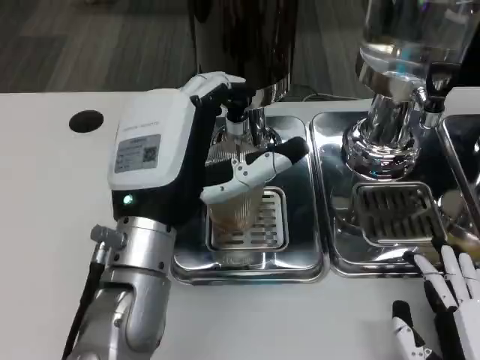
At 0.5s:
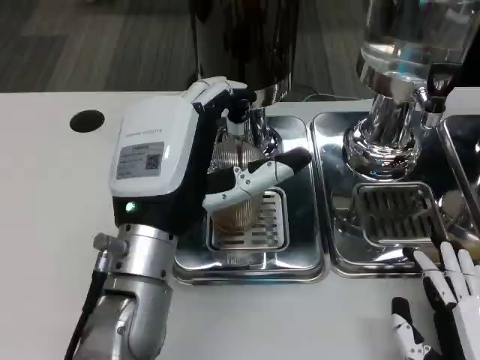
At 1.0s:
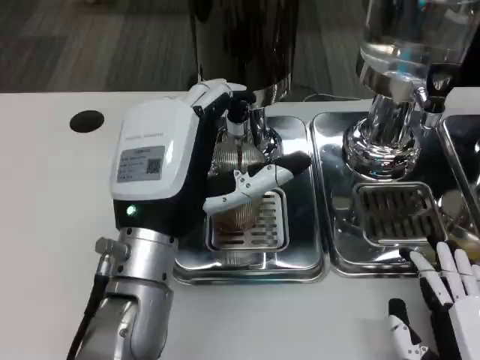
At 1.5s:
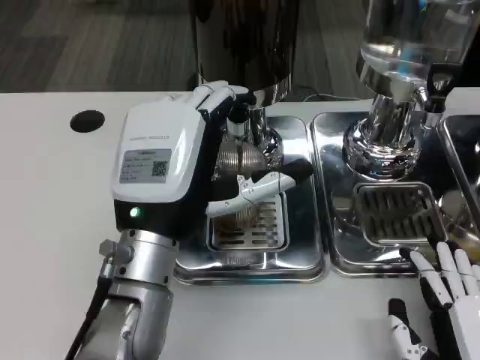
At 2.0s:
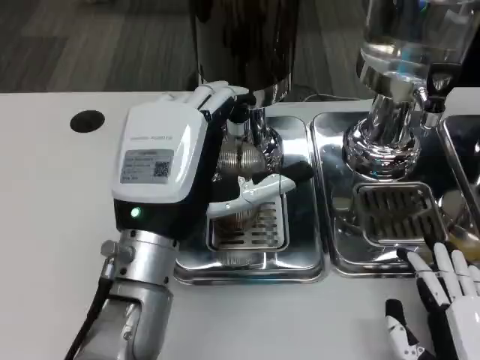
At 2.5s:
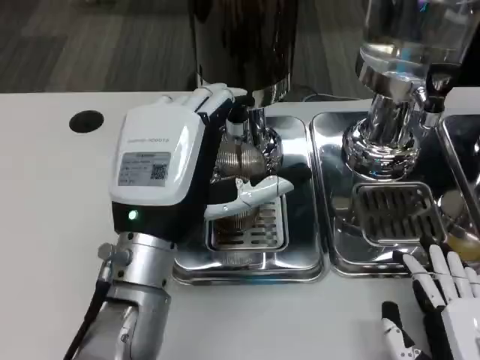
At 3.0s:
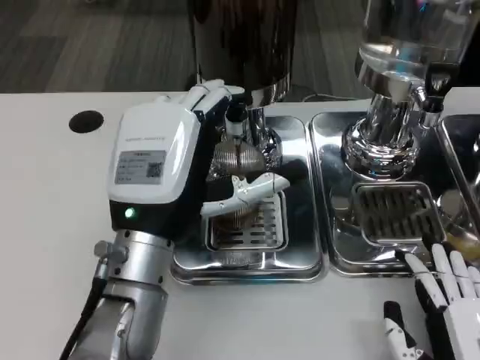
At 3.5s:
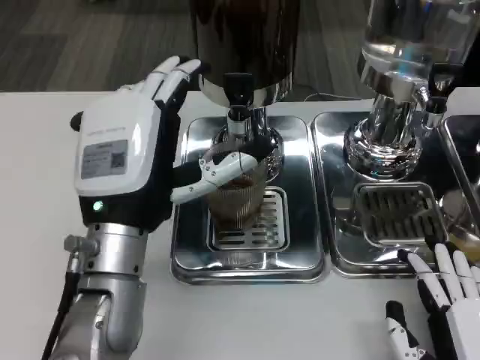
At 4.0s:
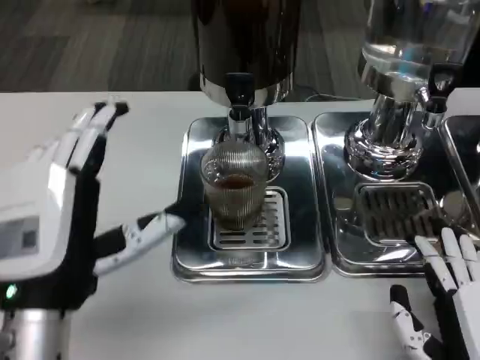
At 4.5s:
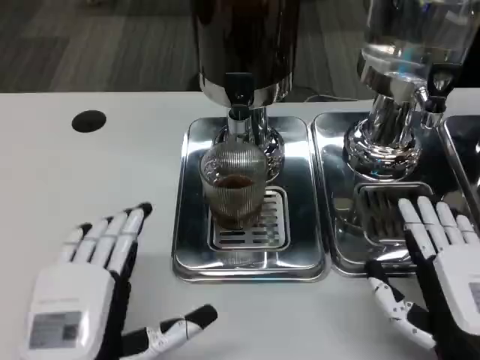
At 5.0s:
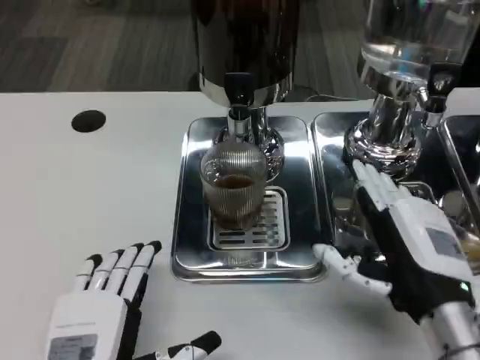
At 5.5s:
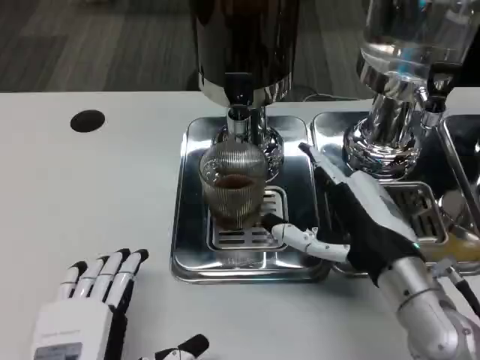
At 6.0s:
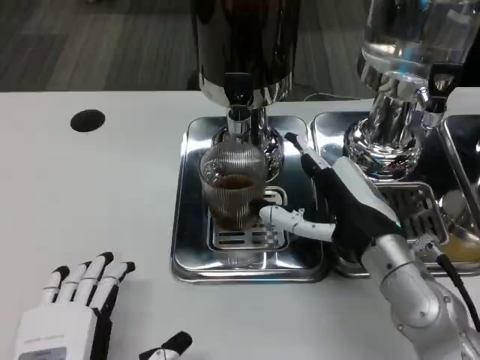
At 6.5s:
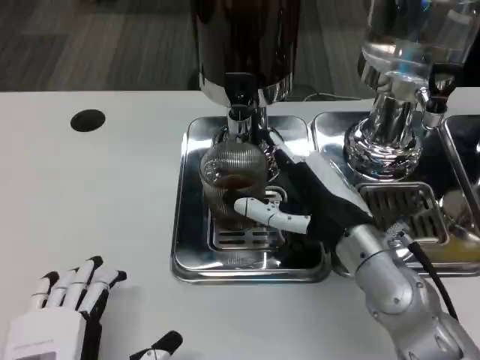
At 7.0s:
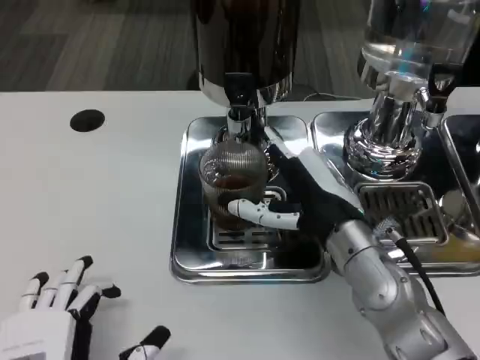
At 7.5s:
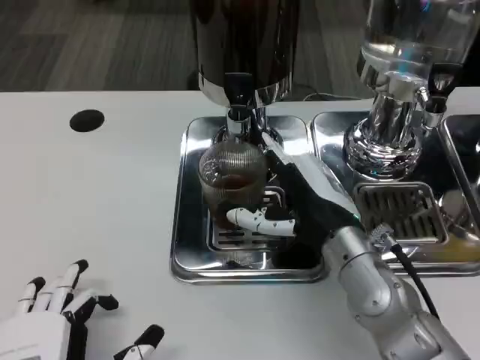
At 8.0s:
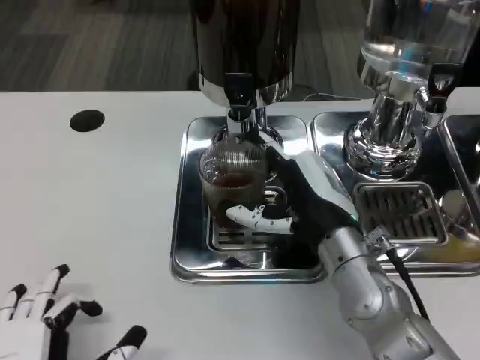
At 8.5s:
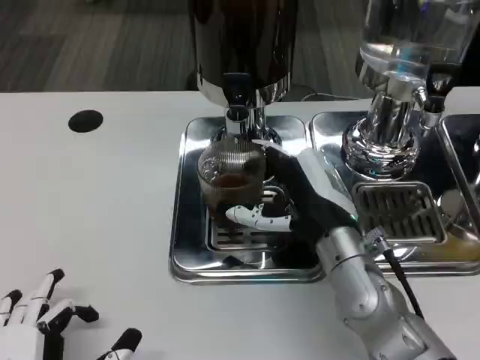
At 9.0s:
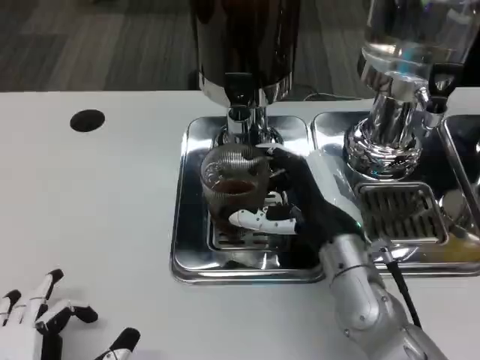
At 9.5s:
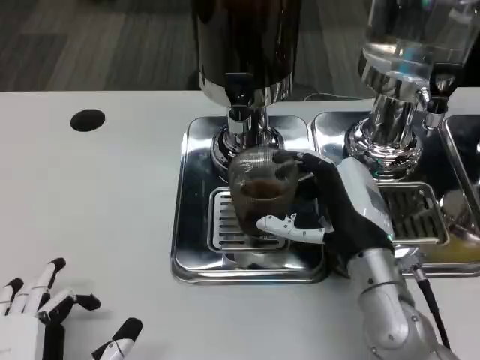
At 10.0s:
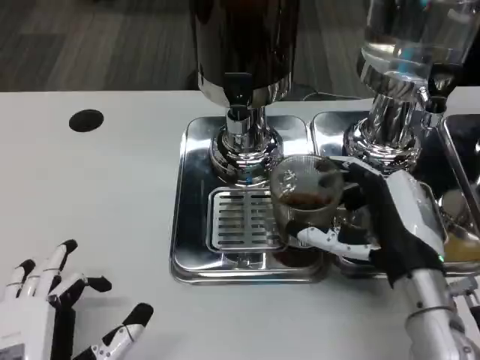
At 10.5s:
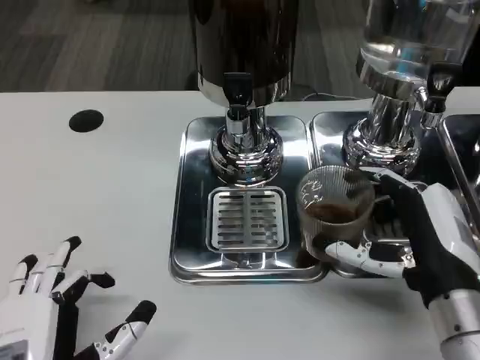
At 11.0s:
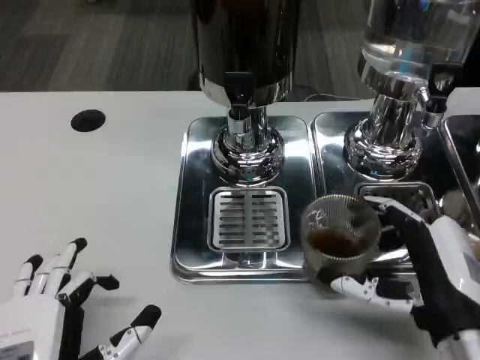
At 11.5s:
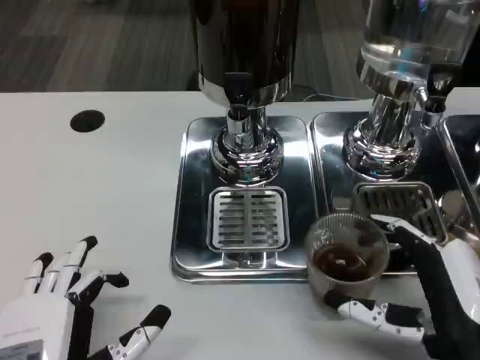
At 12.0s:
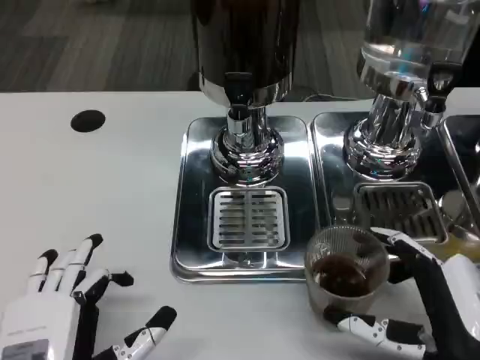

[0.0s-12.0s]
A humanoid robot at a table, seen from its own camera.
Task of the whole recording: Grasp the cup under the faucet to collect the drink, then remove the cup.
0.0s to 2.0s: There are only small adjustments of the hands.
2.0s to 4.0s: The left hand shifts some 10 cm to the left and backward.
4.0s to 6.0s: The right hand travels forward, upward and to the left by roughly 15 cm. Meanwhile the left hand goes roughly 10 cm downward and backward.
6.0s to 8.0s: The hands stay close to where they were, moving slightly.
8.0s to 10.0s: The right hand travels to the right by roughly 5 cm.
10.0s to 12.0s: The right hand moves backward, approximately 10 cm.

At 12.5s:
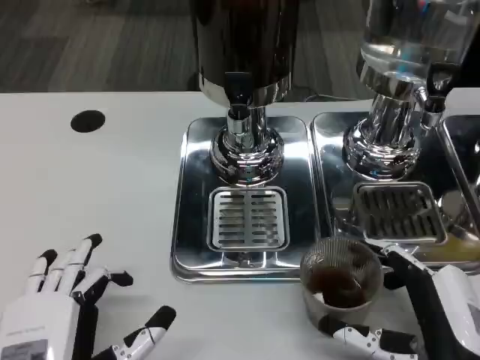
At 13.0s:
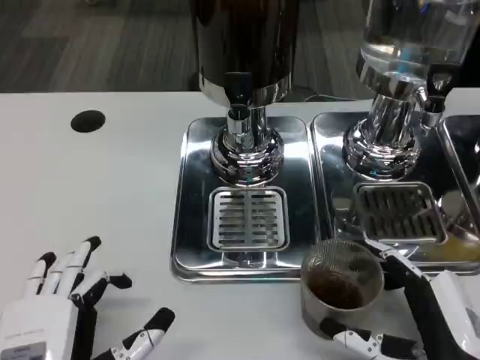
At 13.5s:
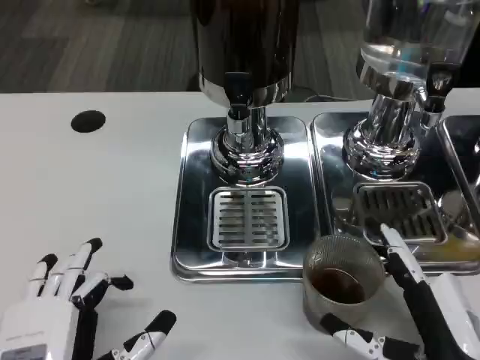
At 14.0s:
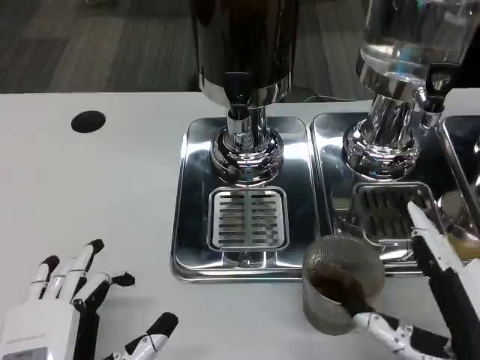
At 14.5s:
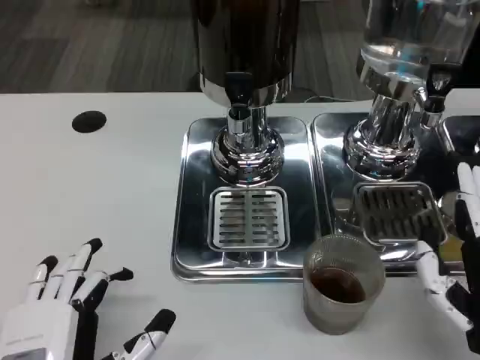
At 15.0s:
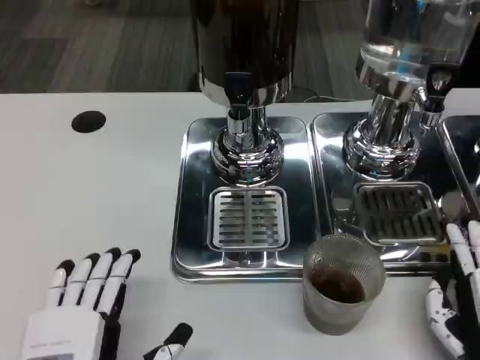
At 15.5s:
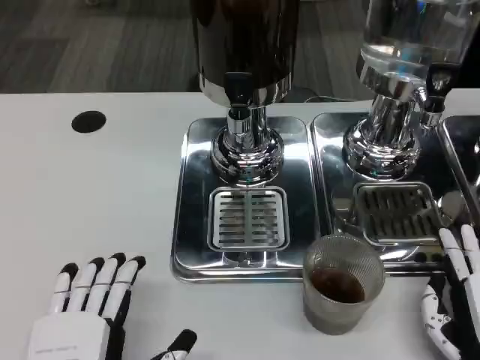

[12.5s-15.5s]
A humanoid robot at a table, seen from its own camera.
Task of the whole recording: Grasp the cup under the faucet to collect the drink, then remove the cup.
12.5s to 14.0s: The hands move only a little.
14.0s to 15.5s: The right hand is displaced downward by approximately 5 cm.

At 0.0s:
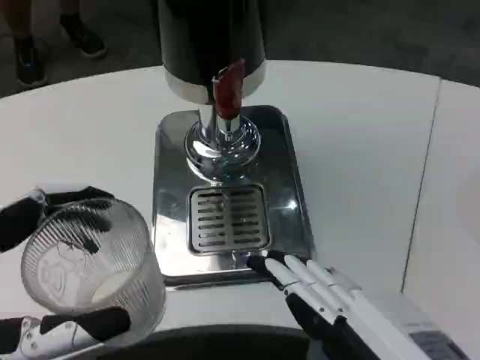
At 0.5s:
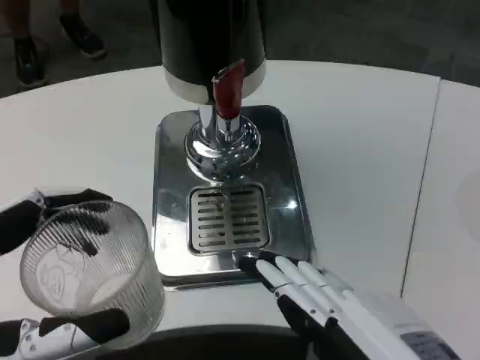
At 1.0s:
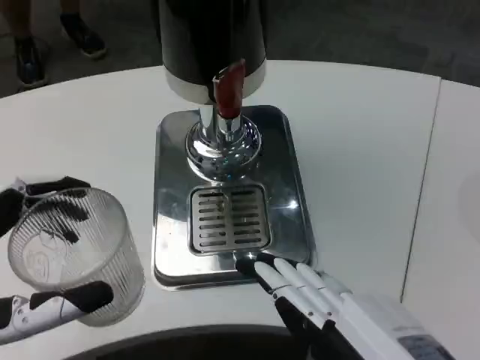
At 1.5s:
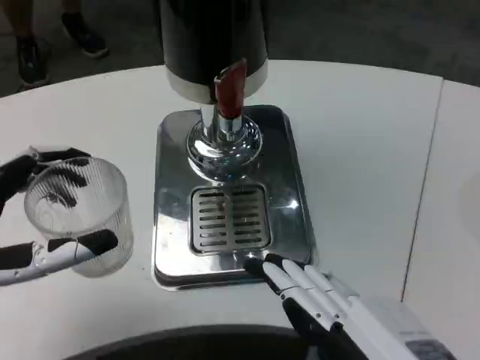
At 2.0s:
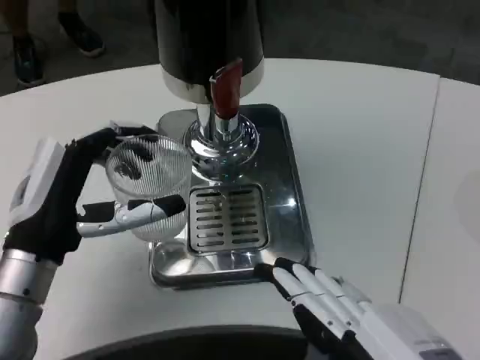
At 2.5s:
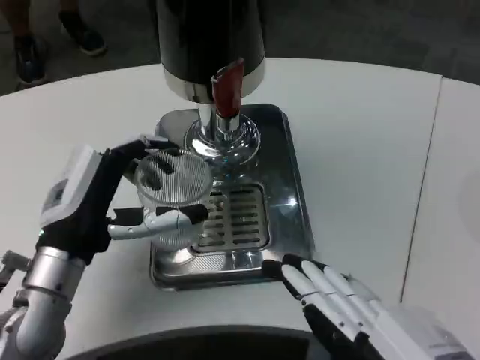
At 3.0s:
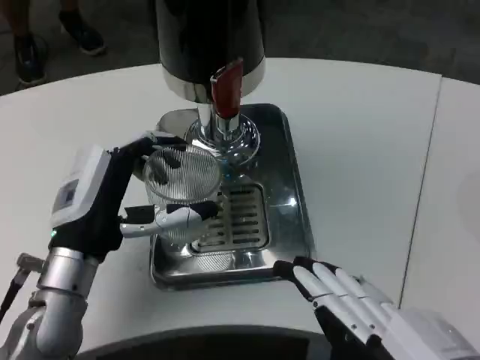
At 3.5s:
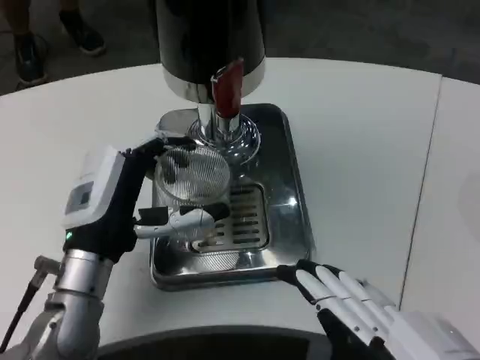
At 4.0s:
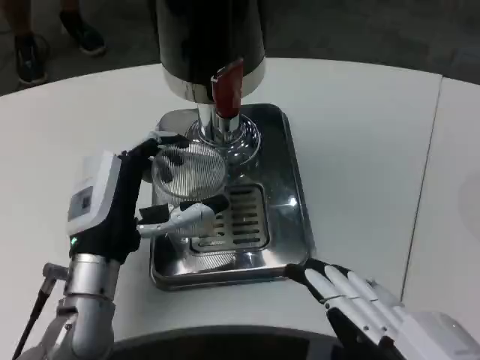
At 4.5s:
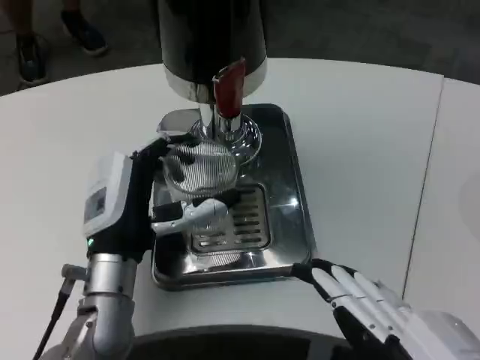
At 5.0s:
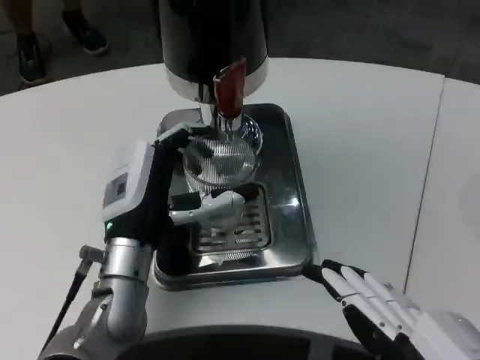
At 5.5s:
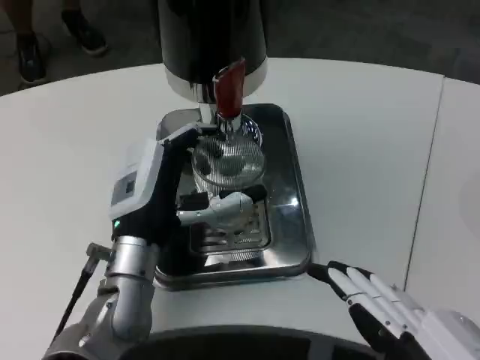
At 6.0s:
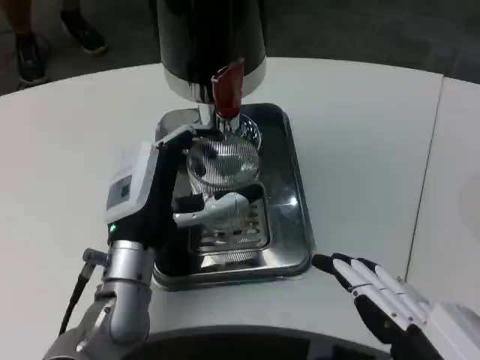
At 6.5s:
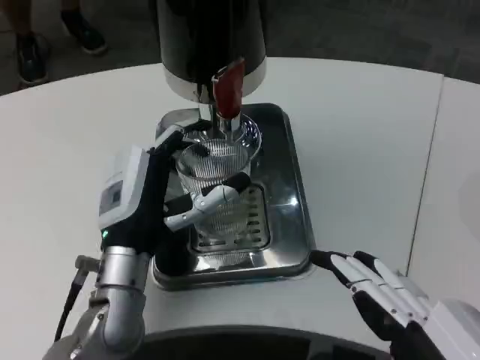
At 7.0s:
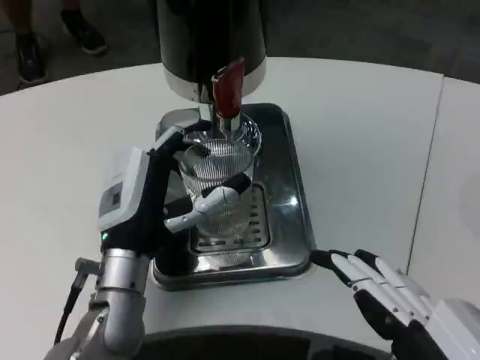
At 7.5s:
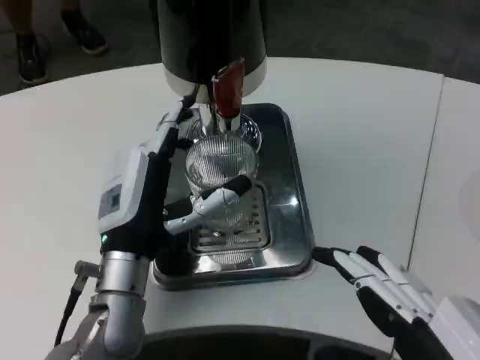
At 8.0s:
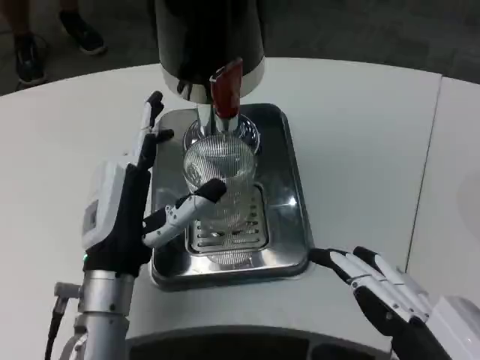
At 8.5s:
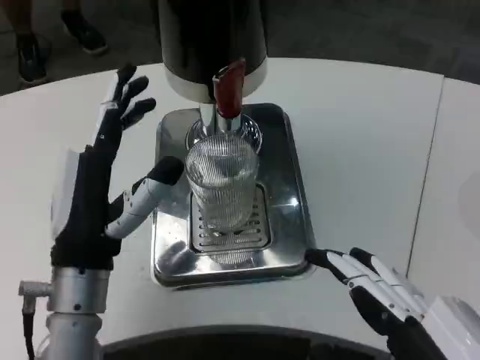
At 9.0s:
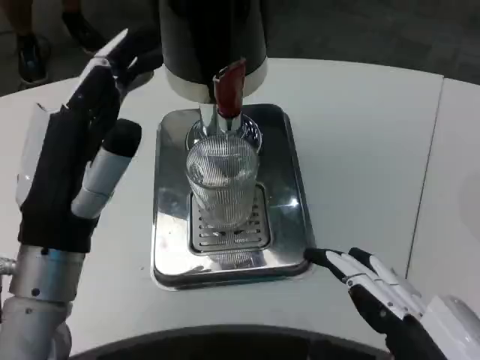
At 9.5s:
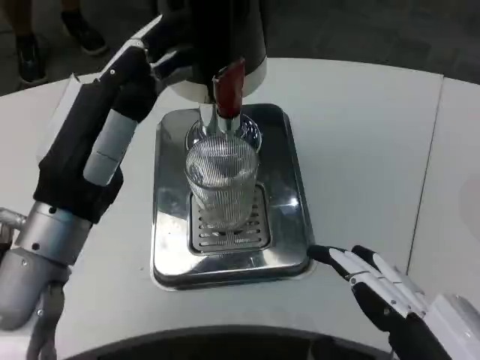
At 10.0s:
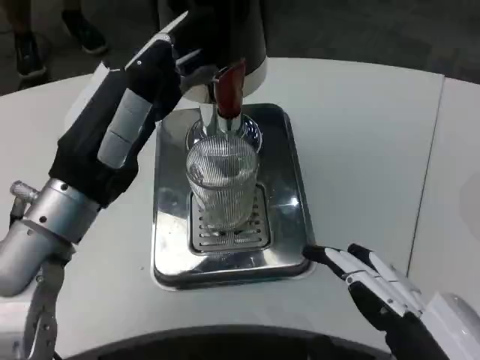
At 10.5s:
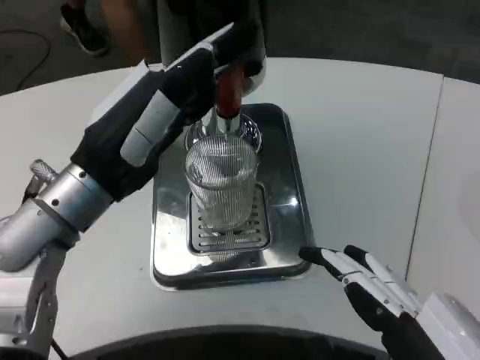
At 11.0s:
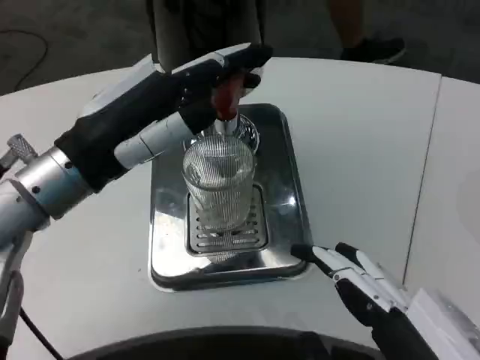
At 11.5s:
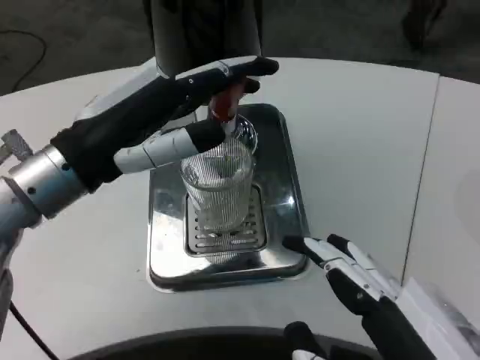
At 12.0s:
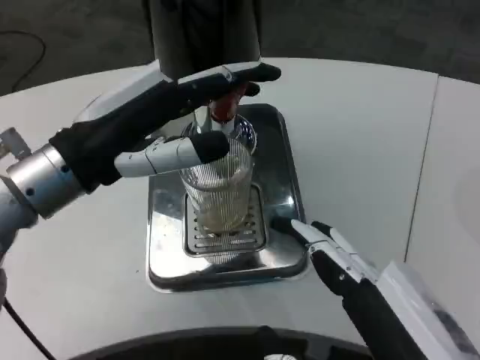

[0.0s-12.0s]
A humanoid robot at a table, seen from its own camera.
Task of the whole recording: Grasp the cup under the faucet to collect the drink, then remove the cup.
0.0s to 2.0s: The left hand heads forward, covering about 15 cm.
2.0s to 4.0s: The left hand travels to the right by roughly 5 cm.
6.0s to 8.0s: The hands stay close to where they were, moving slightly.
8.0s to 10.0s: The left hand is displaced upward by about 10 cm.
10.0s to 12.0s: The left hand changes place by roughly 5 cm.
